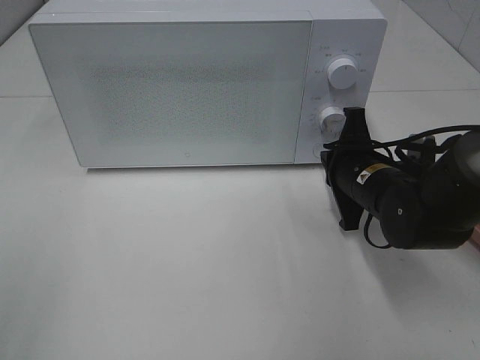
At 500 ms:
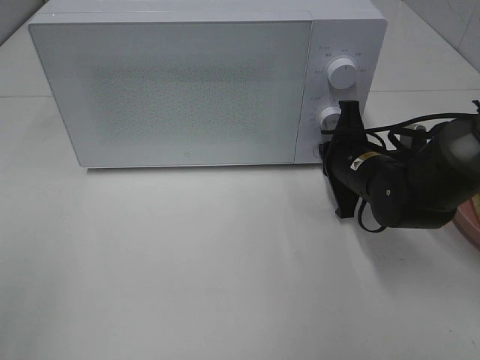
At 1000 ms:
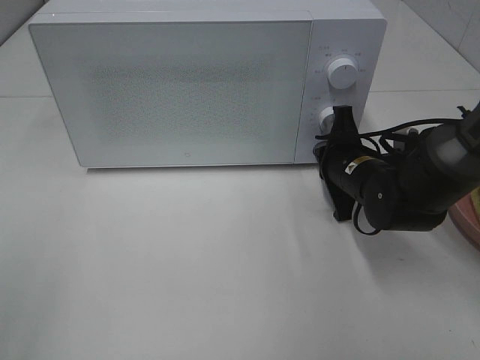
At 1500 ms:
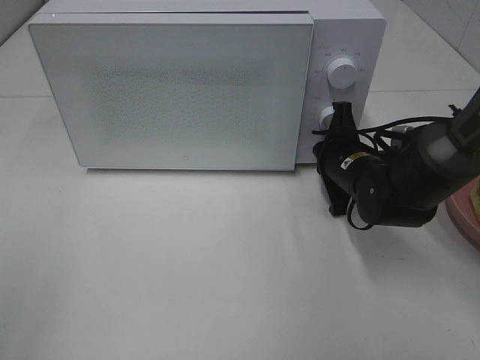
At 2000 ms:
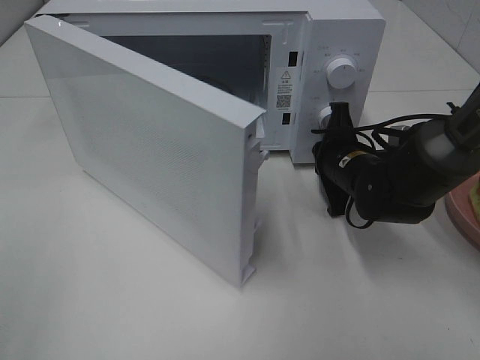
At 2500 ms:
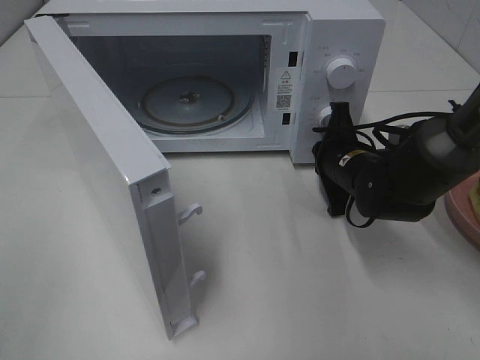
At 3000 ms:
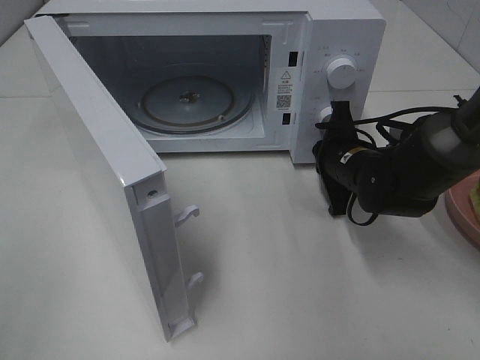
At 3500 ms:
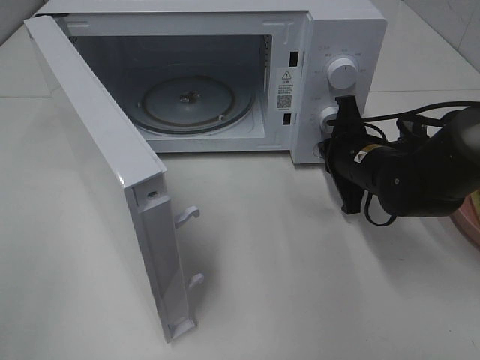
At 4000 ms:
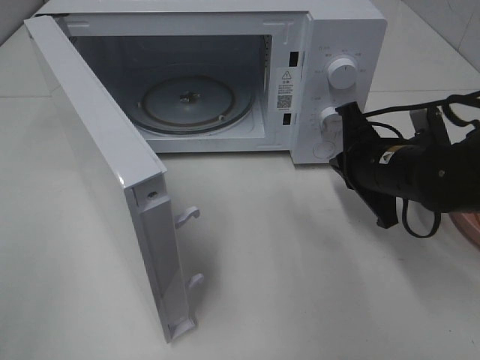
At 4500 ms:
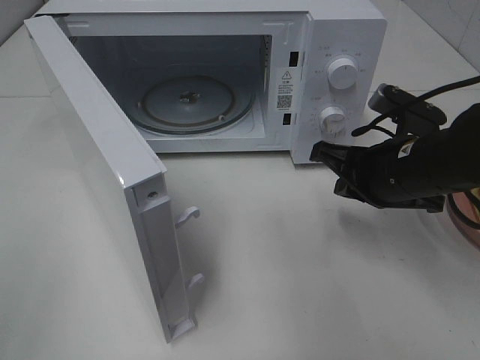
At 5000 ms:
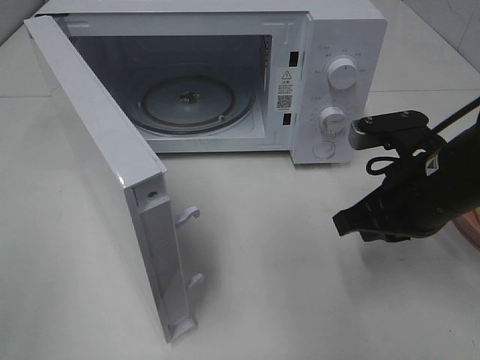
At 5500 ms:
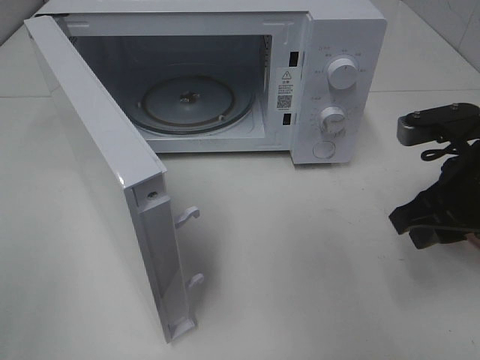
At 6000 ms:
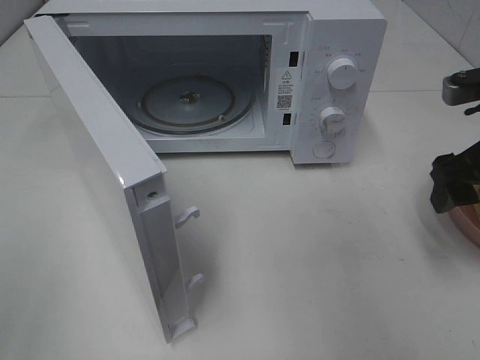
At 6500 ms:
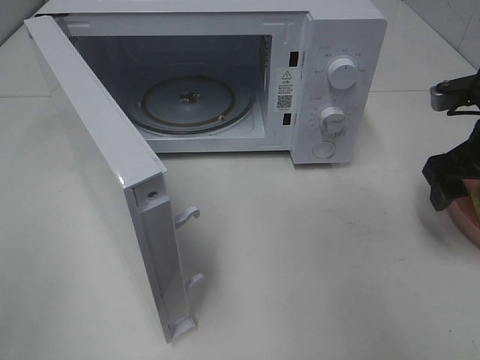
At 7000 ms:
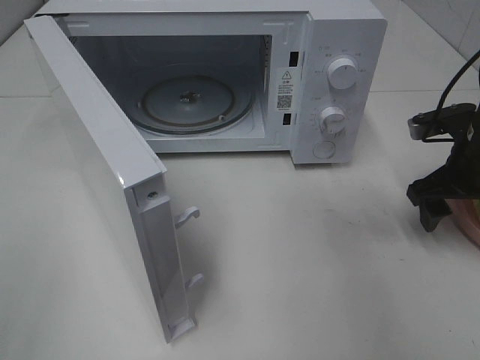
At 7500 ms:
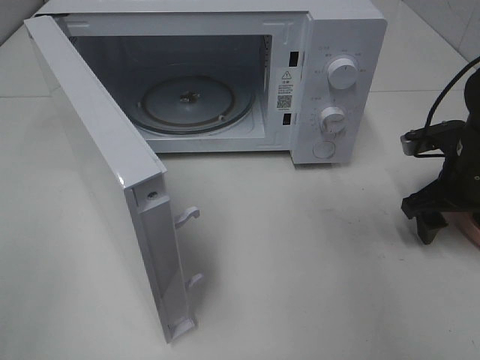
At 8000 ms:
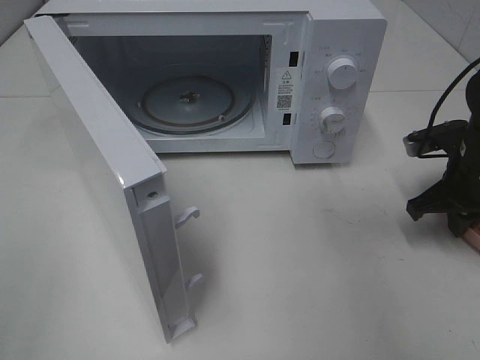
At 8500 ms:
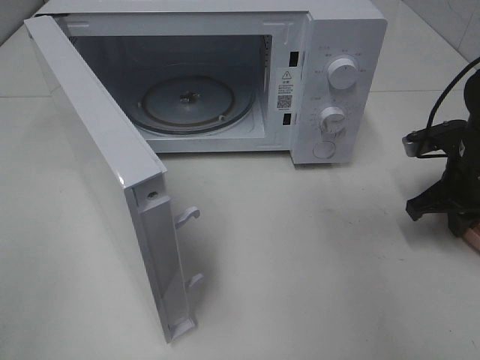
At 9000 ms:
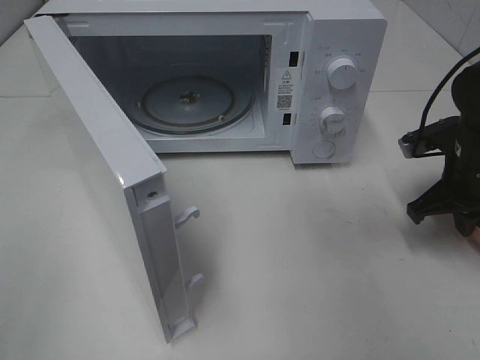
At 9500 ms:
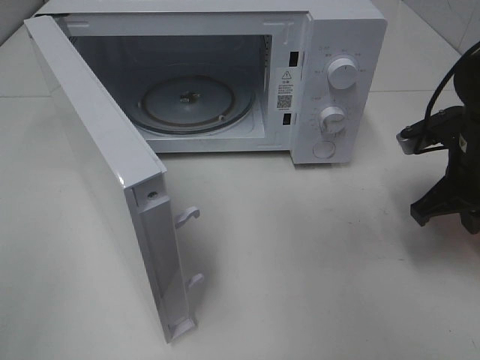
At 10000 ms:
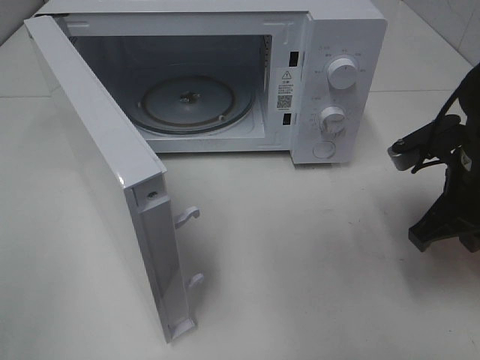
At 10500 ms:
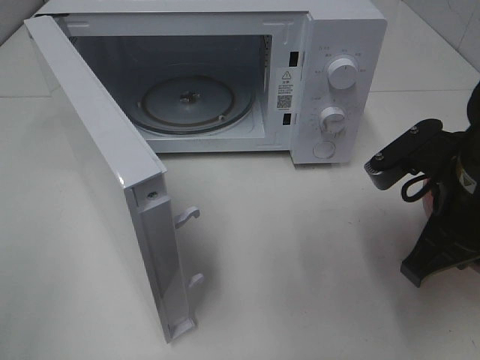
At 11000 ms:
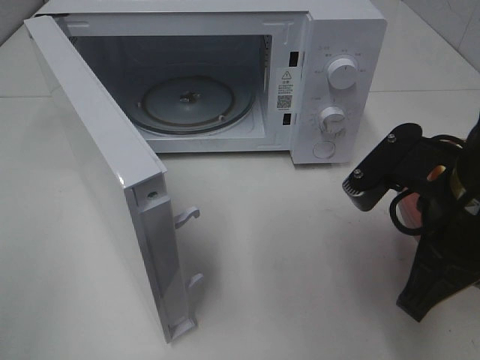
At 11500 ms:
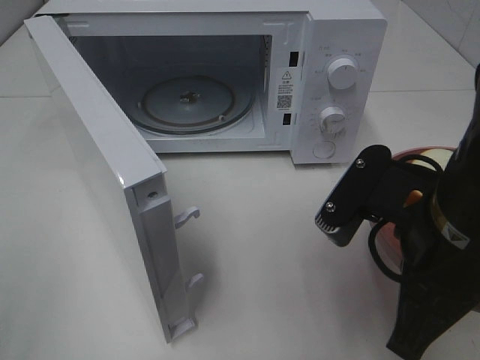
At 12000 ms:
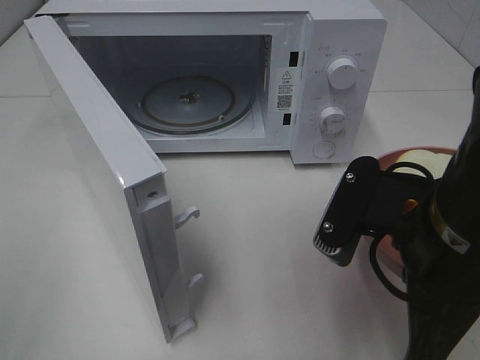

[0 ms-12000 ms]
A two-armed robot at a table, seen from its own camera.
Task of the whole recording: Heat Sandwich.
Step, 0 ms to 3500 ms: Right hand: press the switch.
Step, 4000 ms to 8000 ms: Right hand: grab the plate with the sandwich.
0 ms to 2000 ms: The right gripper changes place by approximately 5 cm.
2000 ms to 4000 ms: The right gripper goes some 5 cm backward.
4000 ms to 6000 ms: The right gripper moves to the right and upward, approximately 15 cm, and opens up.
6000 ms to 8000 ms: The right gripper goes approximately 10 cm downward and forward, and closes its fingers.
8000 ms to 10000 ms: The right gripper is displaced backward, to the left and upward by some 10 cm.
10000 ms to 12000 ms: The right gripper moves backward and to the left, some 15 cm.

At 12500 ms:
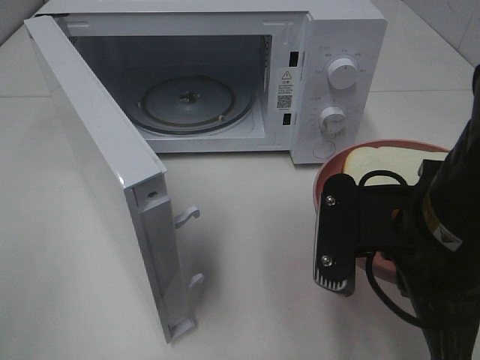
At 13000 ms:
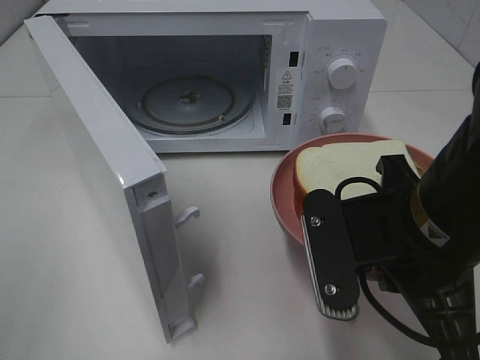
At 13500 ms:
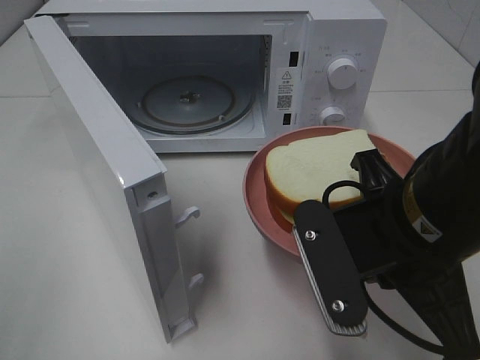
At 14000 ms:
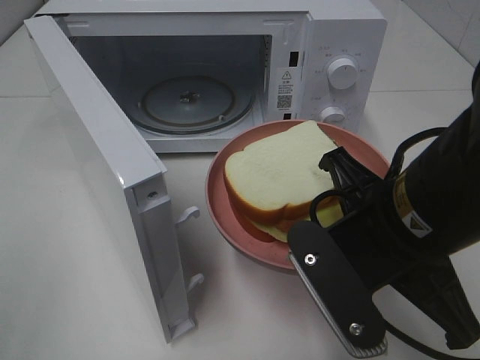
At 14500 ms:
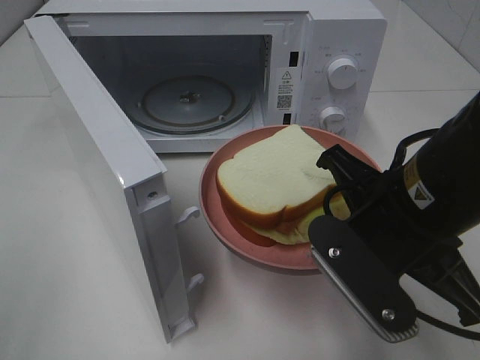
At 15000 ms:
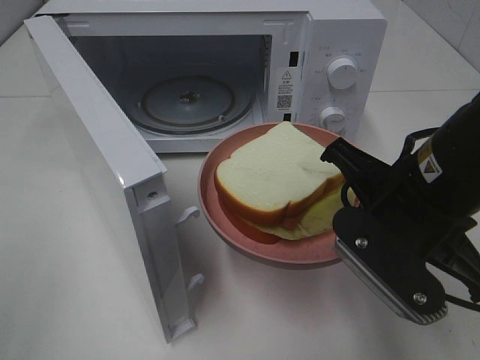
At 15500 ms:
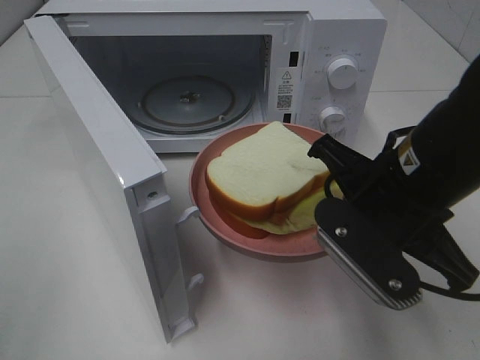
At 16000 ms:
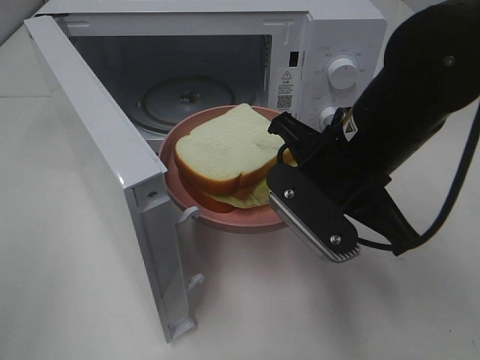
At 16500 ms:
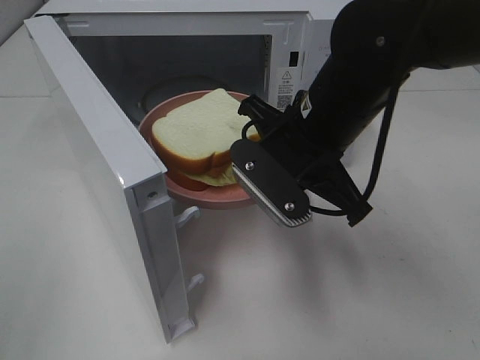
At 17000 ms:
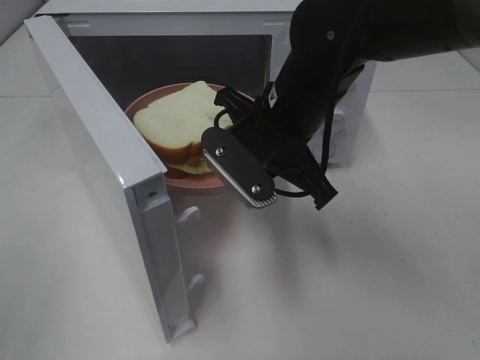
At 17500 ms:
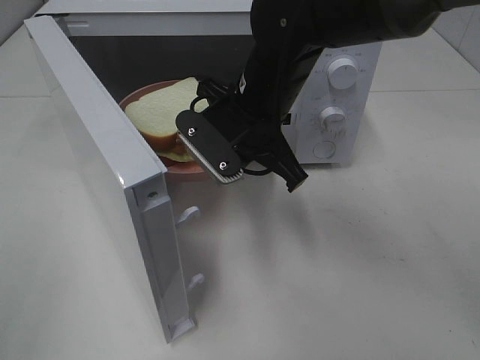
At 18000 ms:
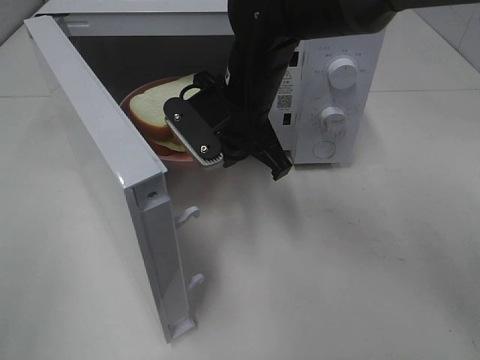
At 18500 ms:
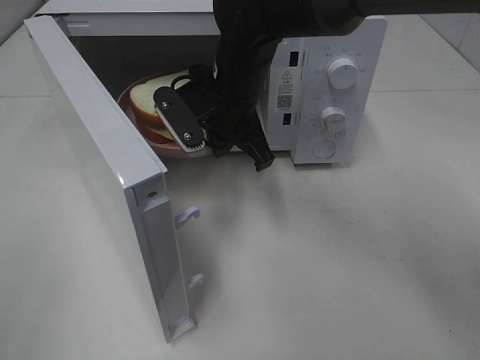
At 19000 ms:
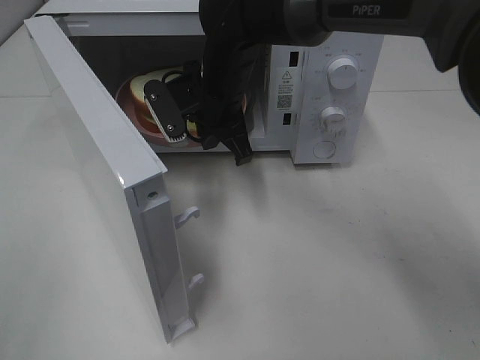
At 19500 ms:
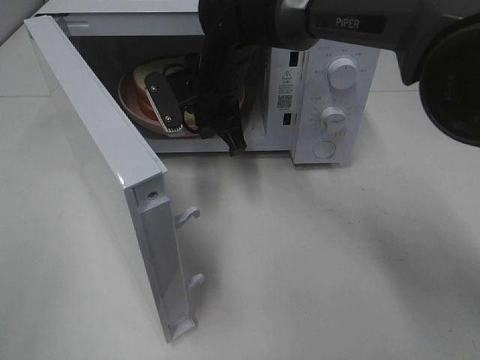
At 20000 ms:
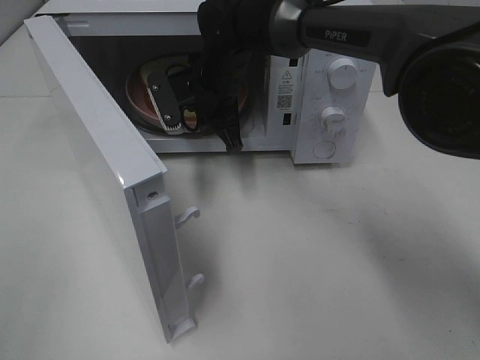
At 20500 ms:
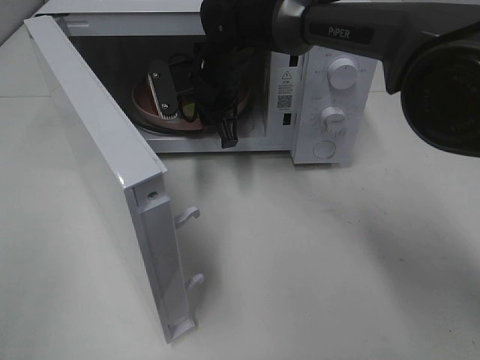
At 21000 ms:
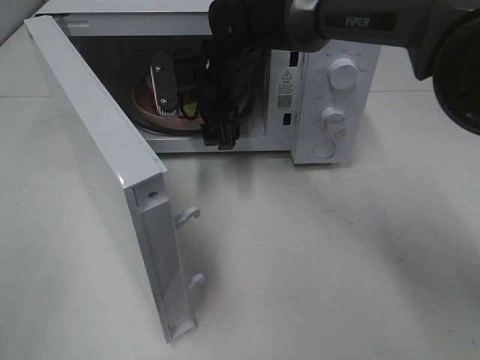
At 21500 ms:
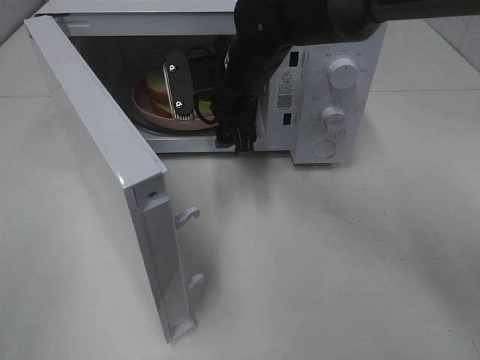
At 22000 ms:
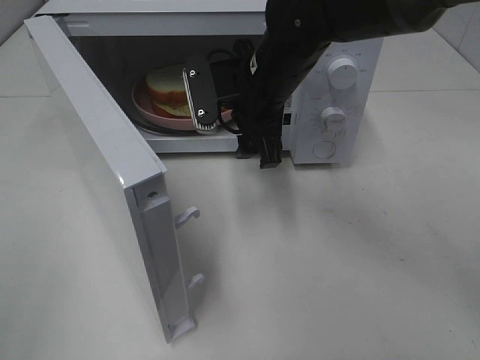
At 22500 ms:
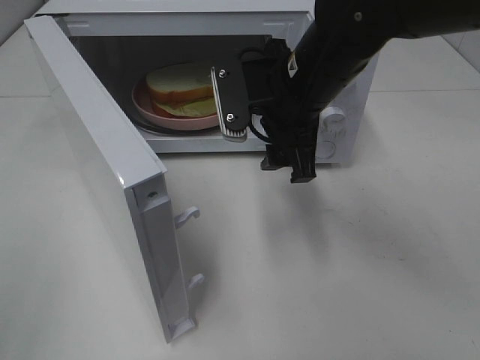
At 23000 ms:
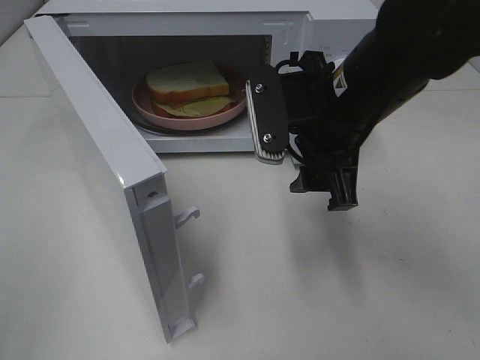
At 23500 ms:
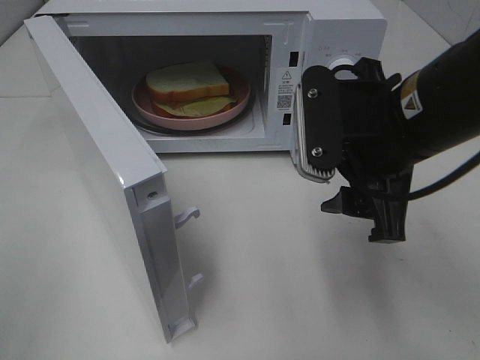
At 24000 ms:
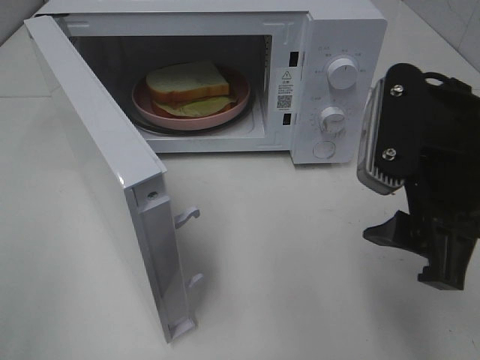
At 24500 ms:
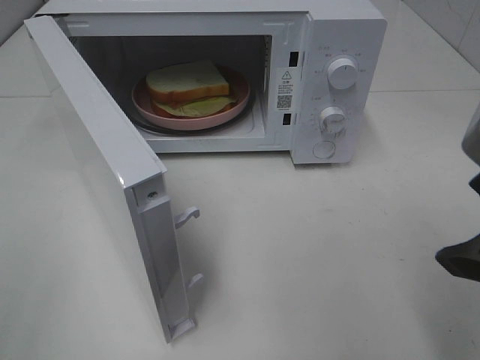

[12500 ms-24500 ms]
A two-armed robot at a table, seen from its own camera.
Task of the whole recording: Heat Sandwich.
Step, 12500 ms to 21000 ms: Right hand: place the plate in the microwave.
14500 ms to 16500 ms: The right gripper shifts about 10 cm forward and to the left.
16500 ms to 18500 ms: The right gripper heads forward and to the left, covering about 15 cm.
18500 ms to 20500 ms: The right gripper heads forward, covering some 5 cm, and opens.
20500 ms to 22500 ms: The right gripper goes about 15 cm backward, to the right and upward.
22500 ms to 24500 ms: The right gripper heads backward and to the right, covering approximately 25 cm.

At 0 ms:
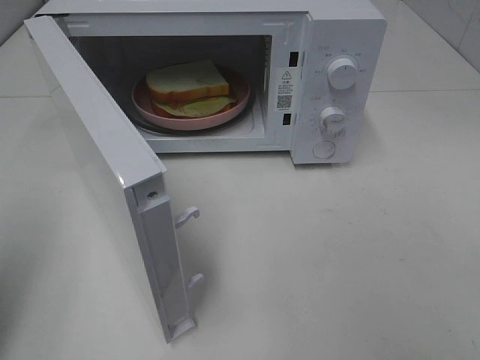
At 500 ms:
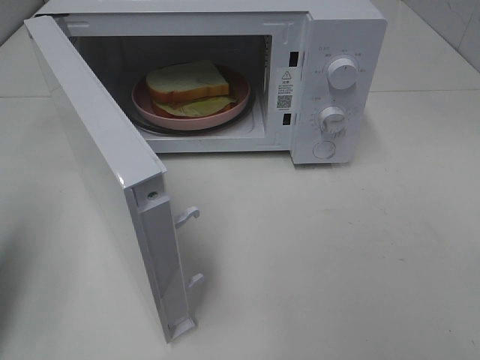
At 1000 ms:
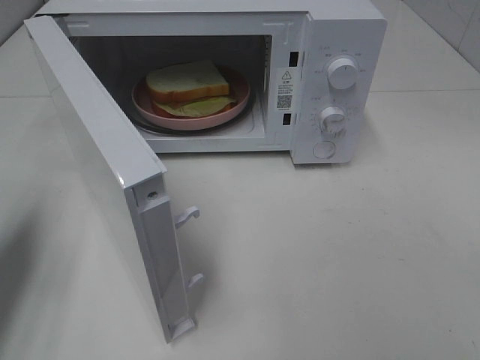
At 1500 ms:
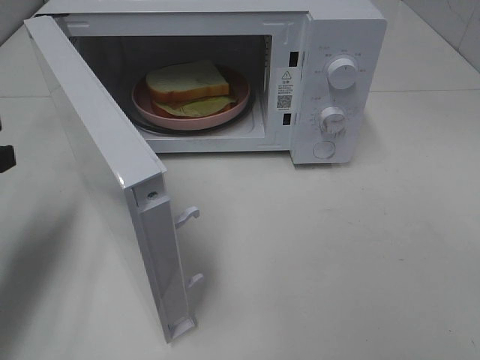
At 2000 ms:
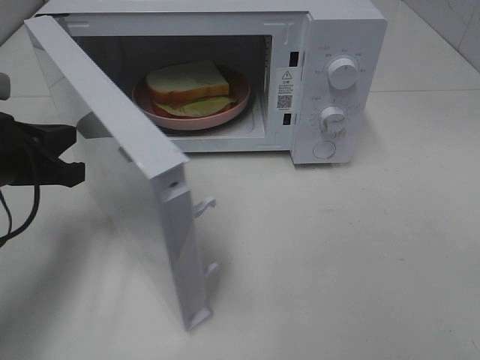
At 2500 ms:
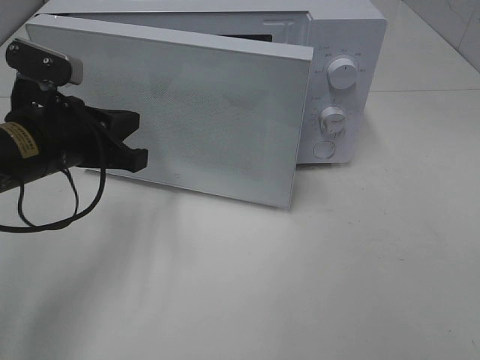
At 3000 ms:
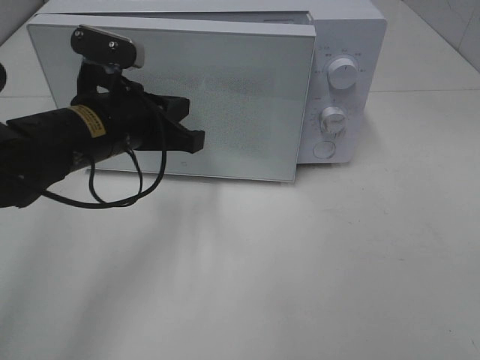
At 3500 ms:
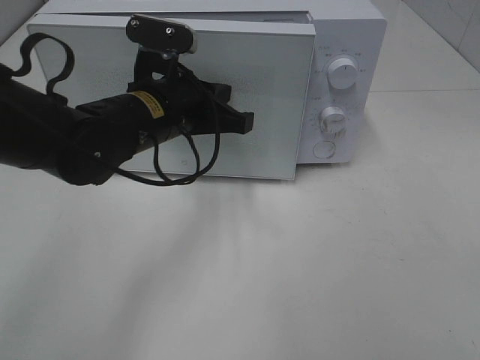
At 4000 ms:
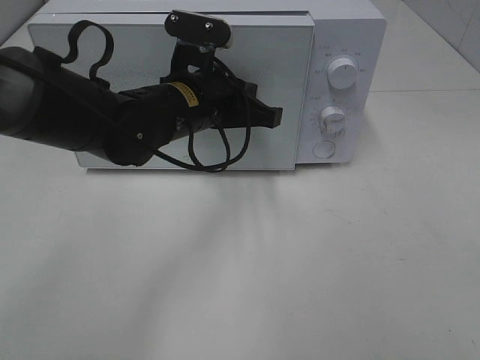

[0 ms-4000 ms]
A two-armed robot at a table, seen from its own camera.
Task of the whole recording: Heat Sandwich.
0 ms to 2000 ms: The left gripper shifts roughly 20 cm forward, downward and to the right.
2000 ms to 4000 ms: The left gripper shifts roughly 20 cm to the right and forward.
